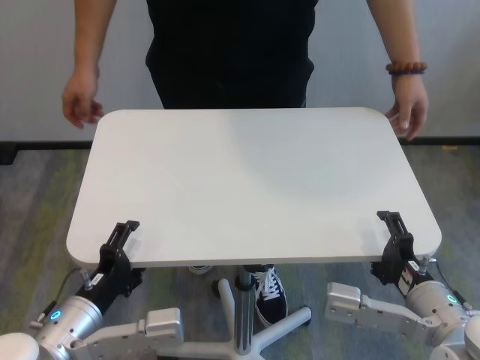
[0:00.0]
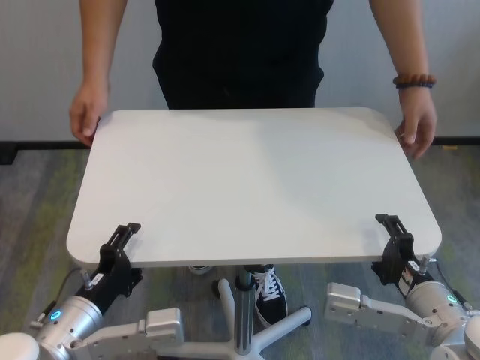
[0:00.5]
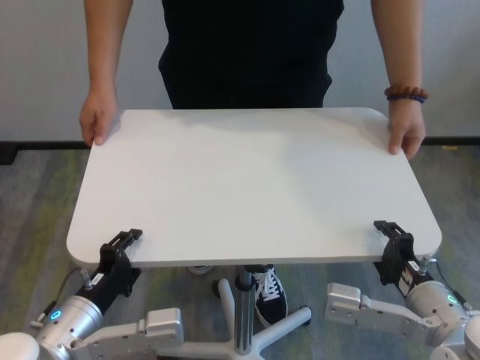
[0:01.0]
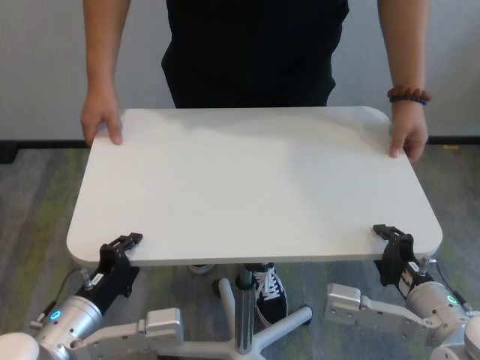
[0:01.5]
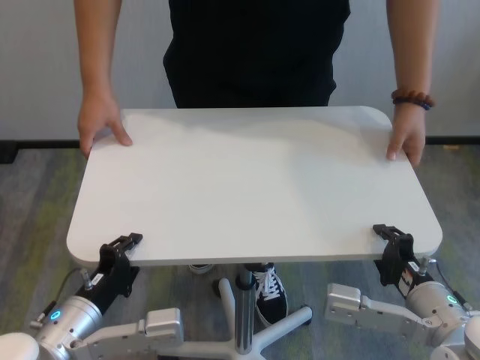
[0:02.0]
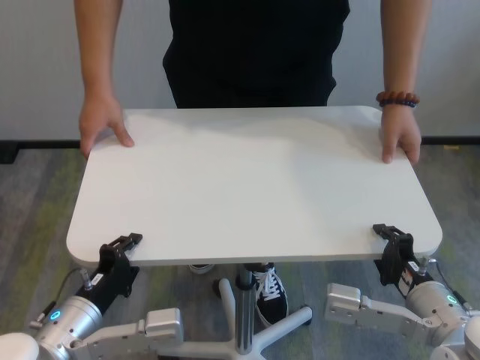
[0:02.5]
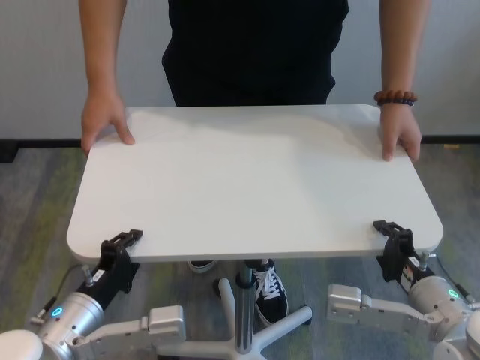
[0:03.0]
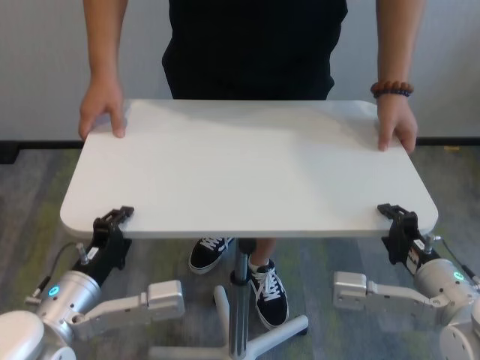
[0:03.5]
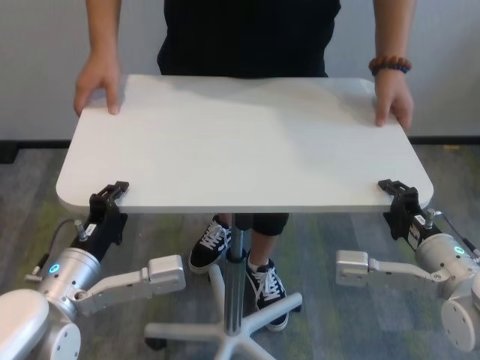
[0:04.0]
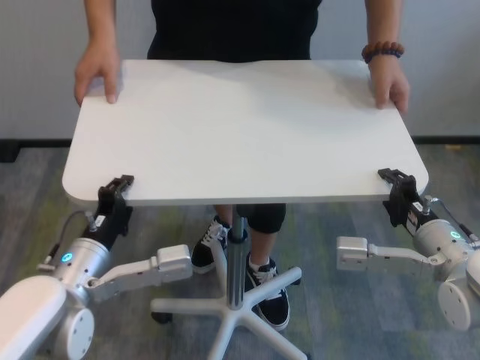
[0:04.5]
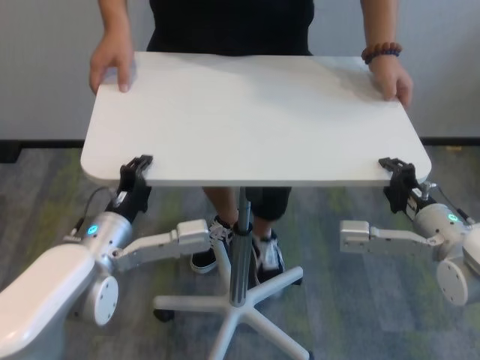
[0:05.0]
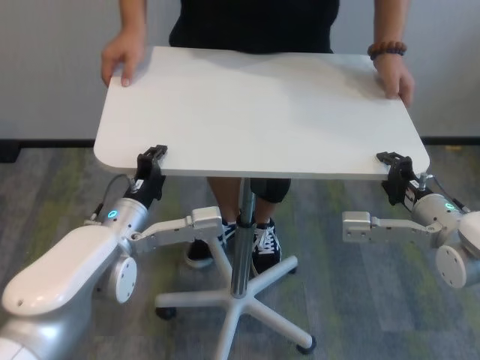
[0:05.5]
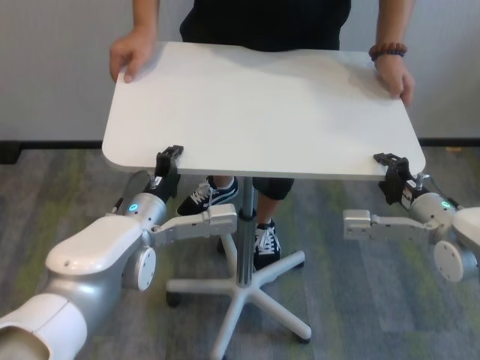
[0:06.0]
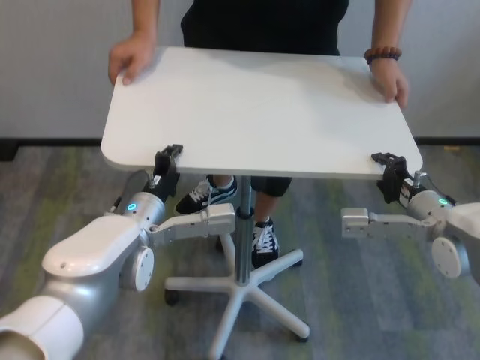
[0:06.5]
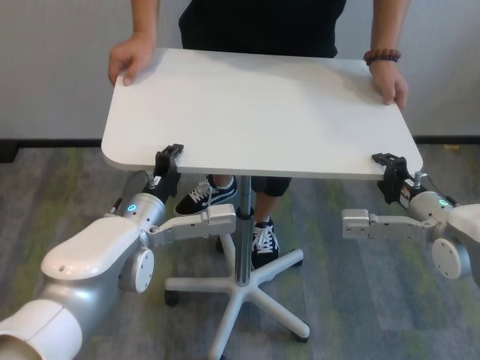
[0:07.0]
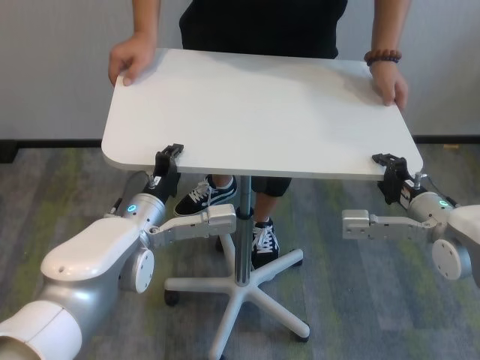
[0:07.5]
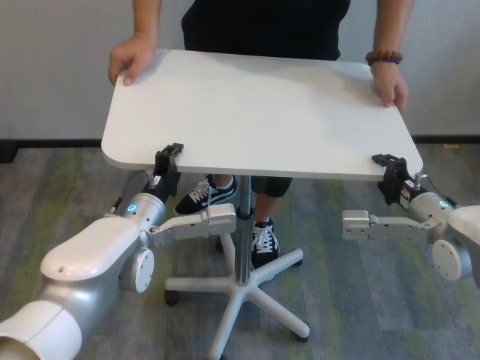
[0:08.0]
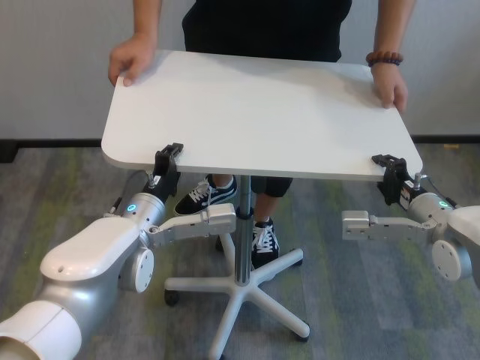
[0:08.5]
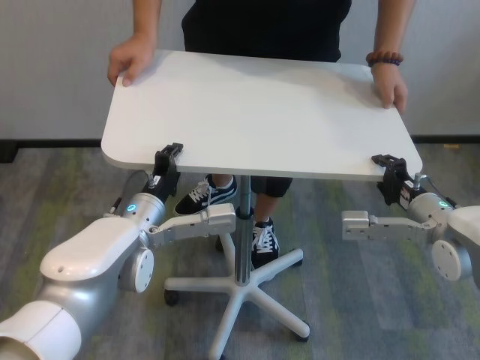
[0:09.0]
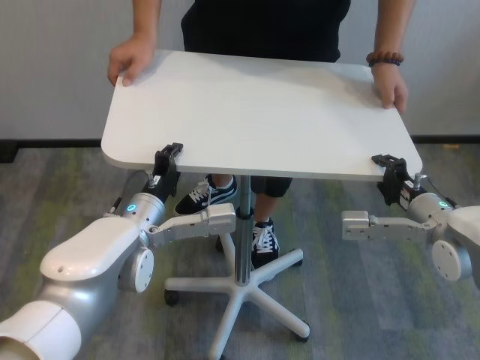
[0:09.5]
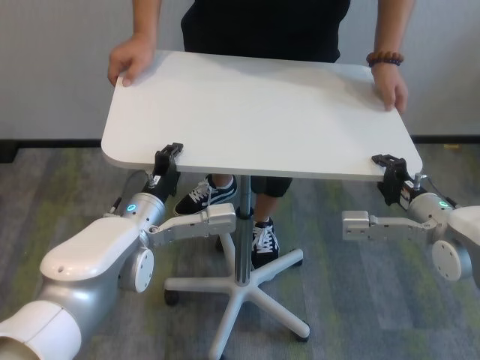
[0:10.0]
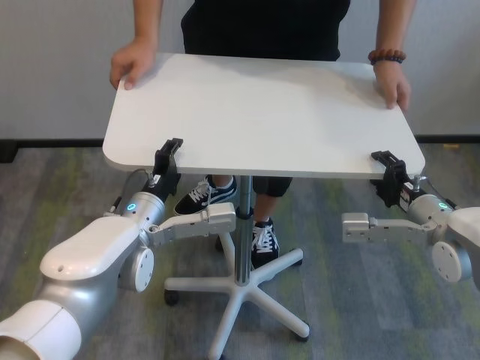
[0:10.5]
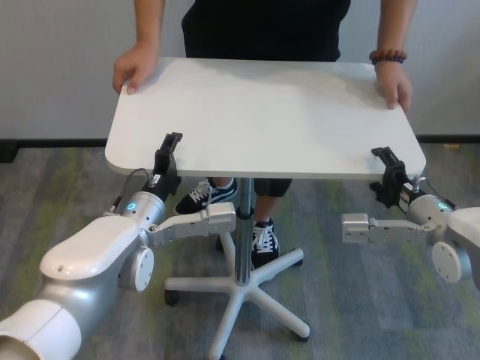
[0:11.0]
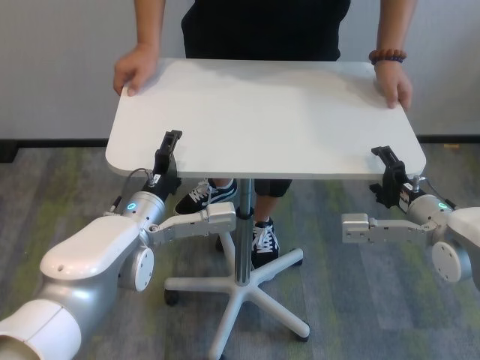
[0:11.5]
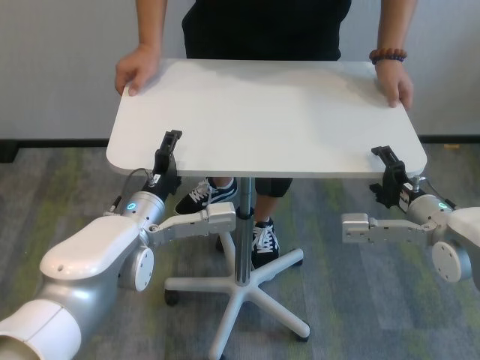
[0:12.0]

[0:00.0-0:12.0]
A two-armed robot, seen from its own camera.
Task of the whole recording: human machine collaborative table moving.
Step, 0:01.5 to 0:11.0: Move the table forward with both grippers.
